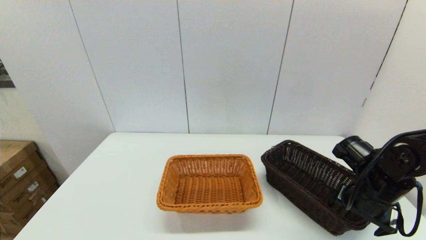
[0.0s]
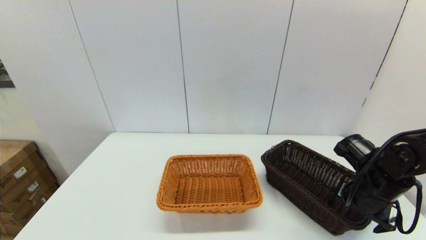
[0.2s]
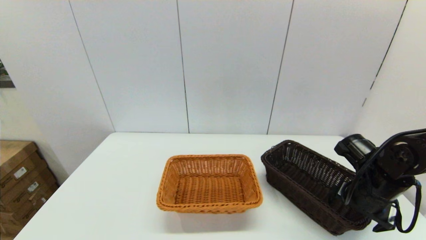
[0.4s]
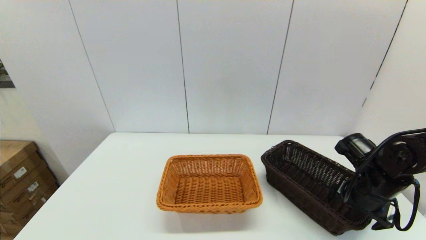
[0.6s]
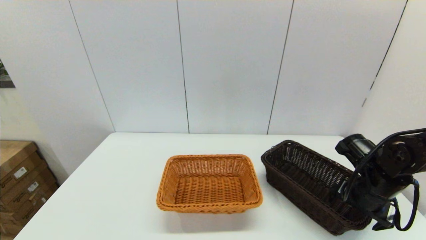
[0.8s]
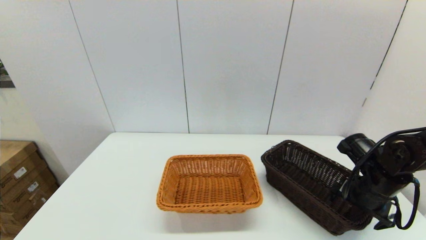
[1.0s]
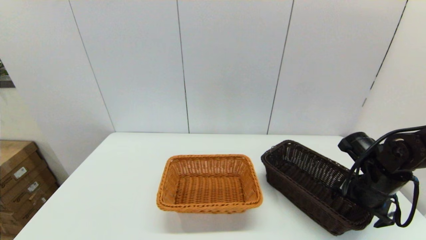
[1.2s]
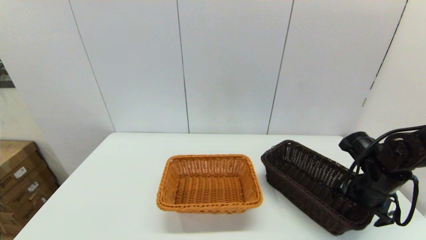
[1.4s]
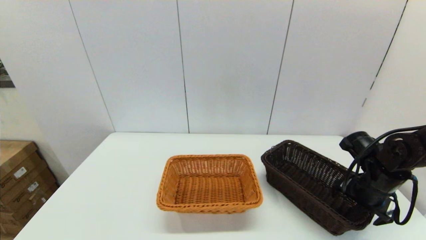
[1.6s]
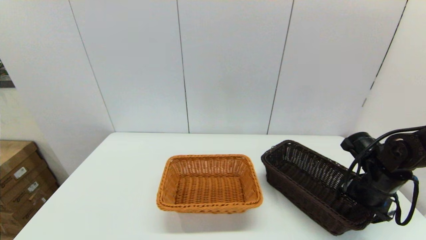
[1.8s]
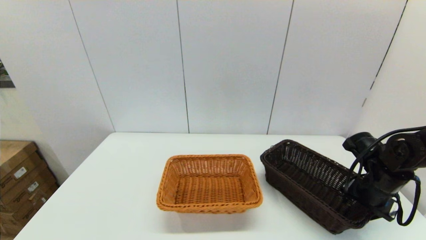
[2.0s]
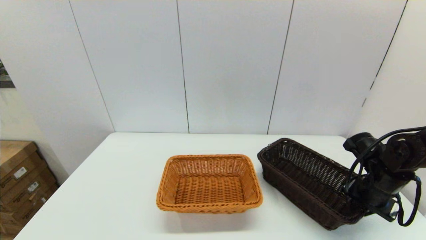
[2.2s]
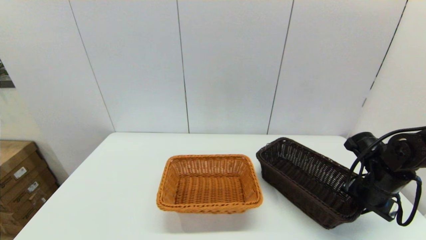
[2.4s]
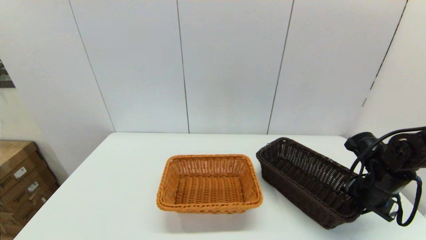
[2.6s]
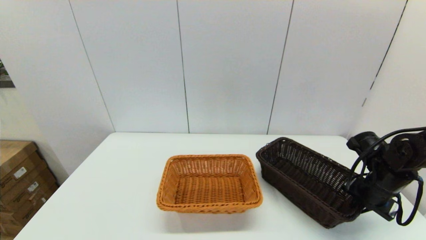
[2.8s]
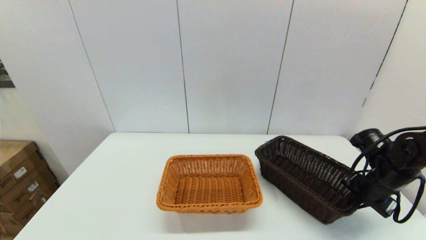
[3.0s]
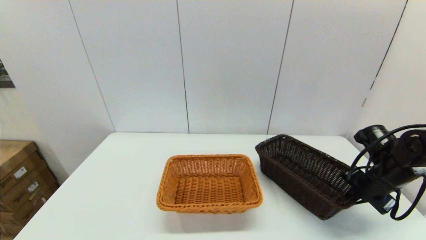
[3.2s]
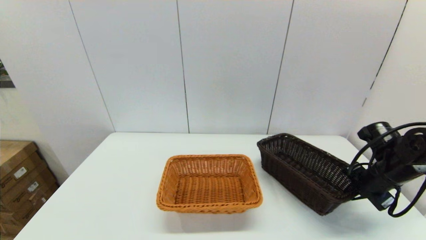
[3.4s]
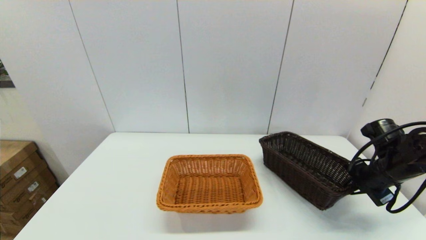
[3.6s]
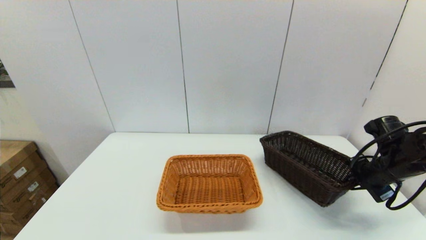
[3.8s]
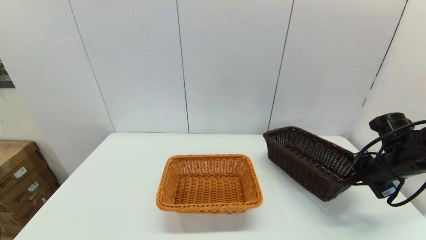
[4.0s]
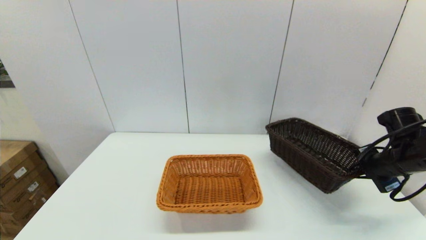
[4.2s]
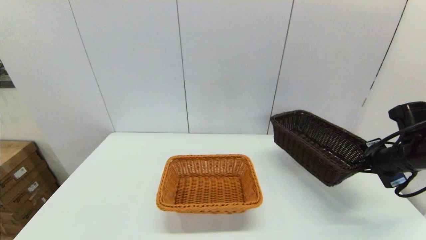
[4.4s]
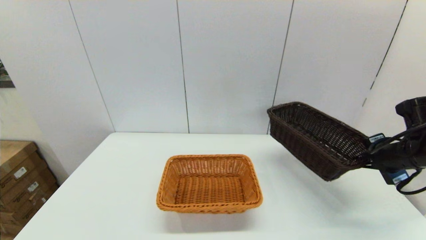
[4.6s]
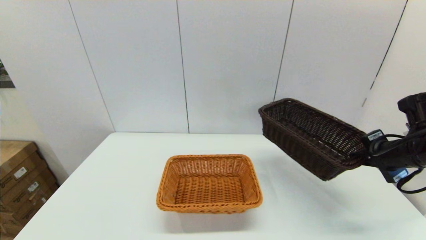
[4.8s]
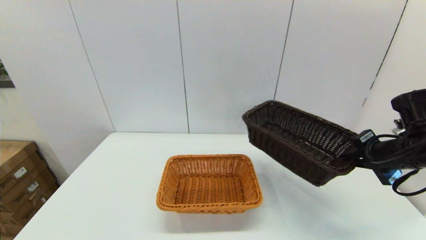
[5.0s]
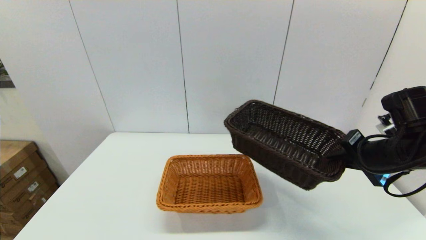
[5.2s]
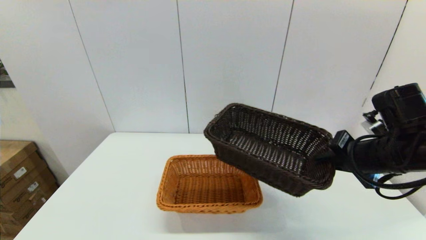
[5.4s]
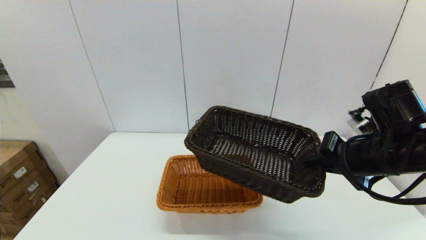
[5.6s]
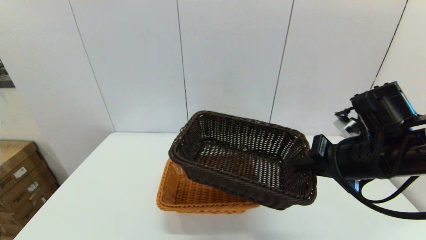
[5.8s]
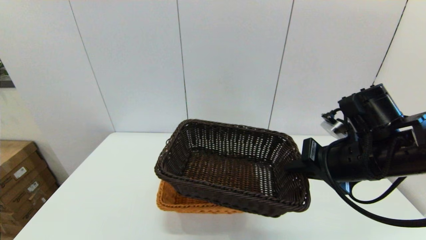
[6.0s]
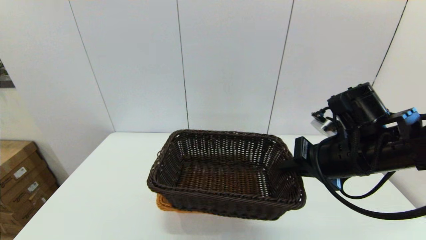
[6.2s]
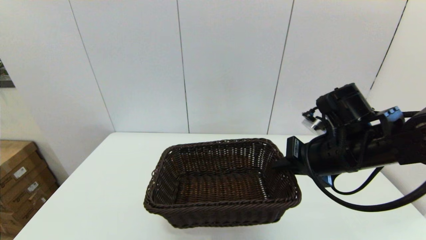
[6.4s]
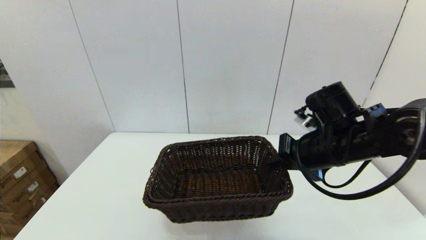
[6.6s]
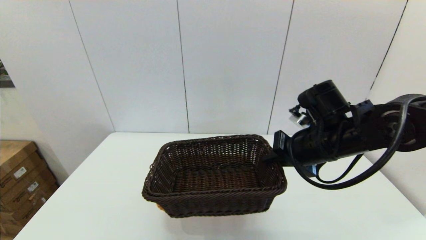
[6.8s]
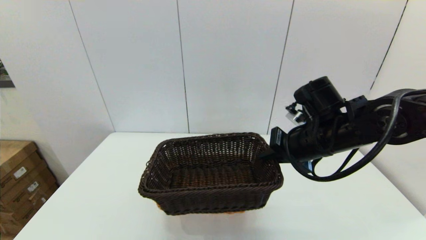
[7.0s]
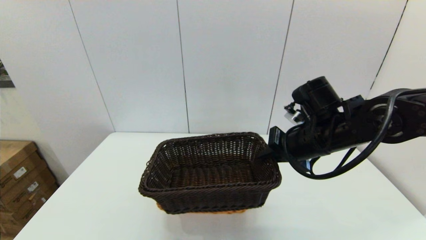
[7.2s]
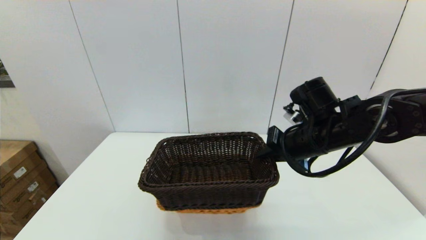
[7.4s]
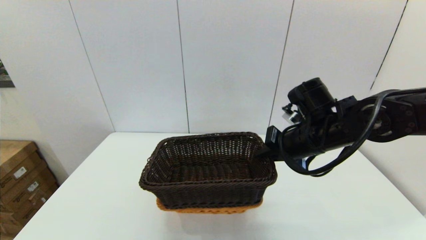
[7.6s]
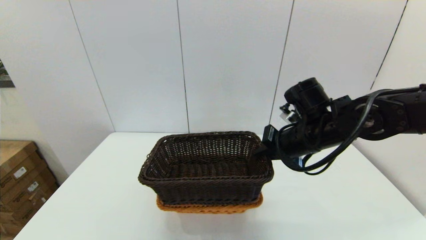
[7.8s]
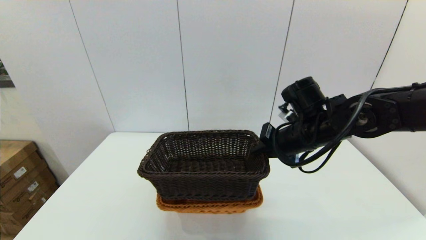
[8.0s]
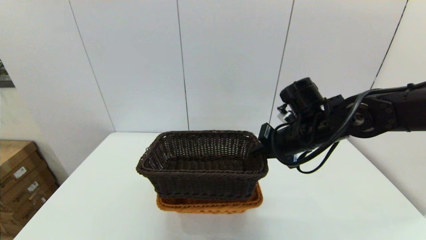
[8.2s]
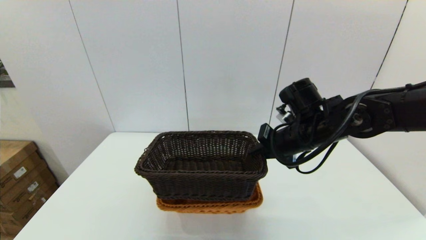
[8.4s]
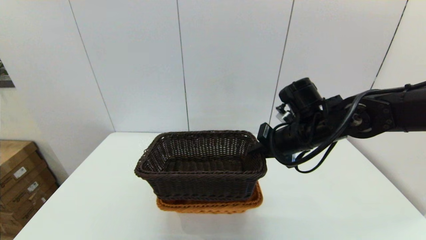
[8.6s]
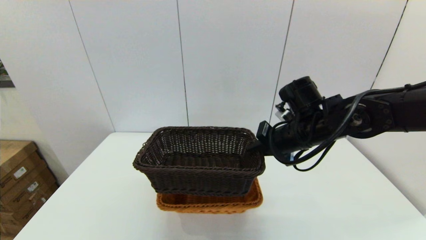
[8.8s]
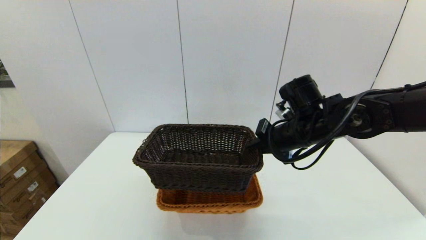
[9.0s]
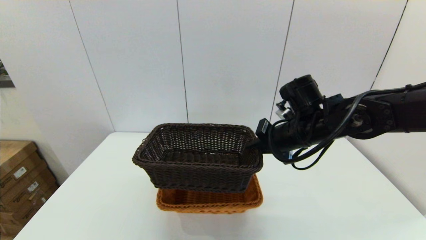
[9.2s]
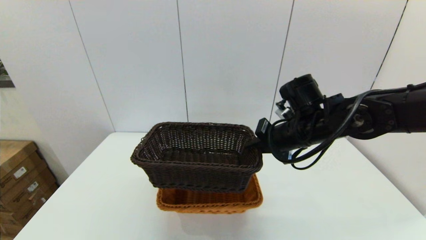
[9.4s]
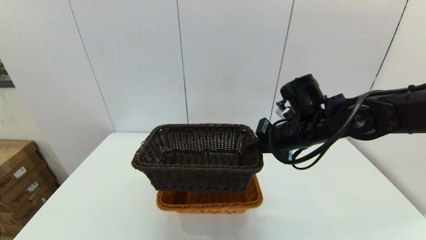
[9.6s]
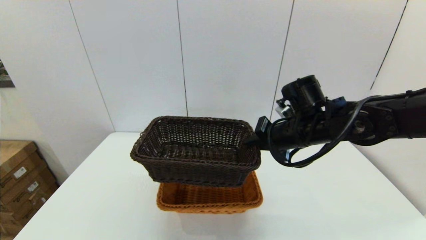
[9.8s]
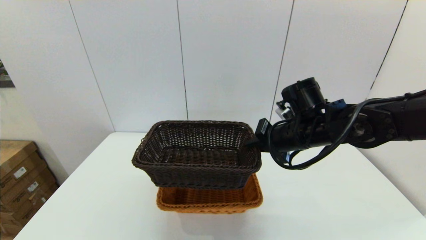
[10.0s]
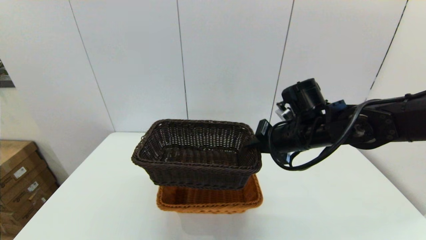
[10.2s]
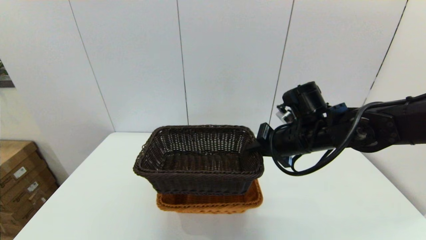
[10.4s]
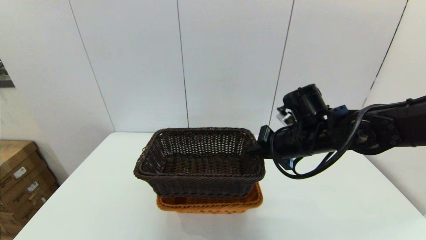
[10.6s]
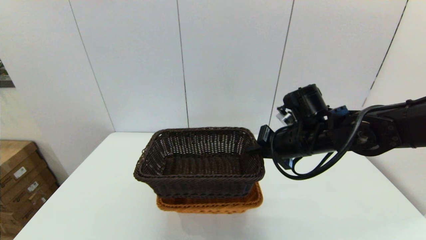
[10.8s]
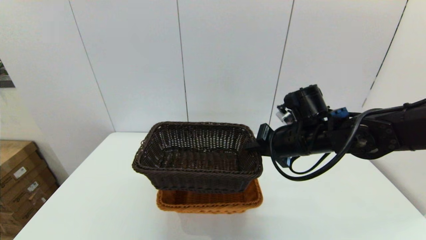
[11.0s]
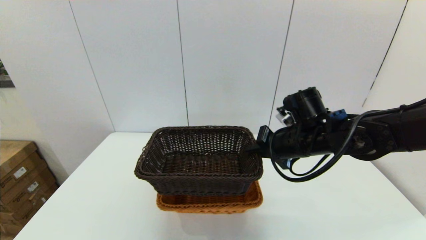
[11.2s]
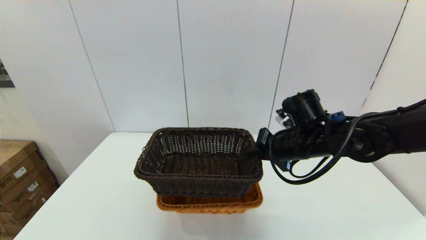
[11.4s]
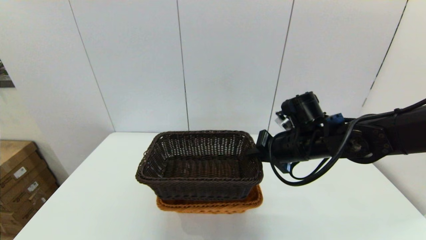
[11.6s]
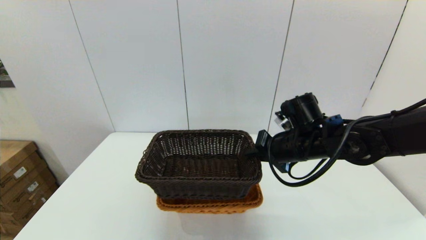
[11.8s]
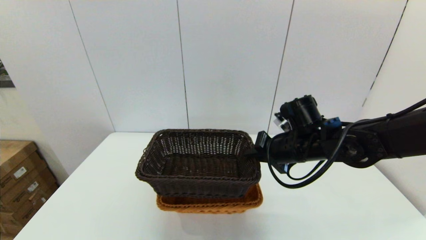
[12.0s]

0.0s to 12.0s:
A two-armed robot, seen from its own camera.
Task of the whole recording: stack a basket on top of another basket.
Step, 0.0s to 2.2s: Grasp the dark basket with the right gripper.
0.0s to 1.6s: The grippers stay close to where they were, moving slightly.
1.6s to 3.0s: The right gripper closes up.
3.0s to 4.4s: The right gripper goes roughly 5 cm upward.
4.4s to 6.0s: The right gripper is displaced to the left by some 15 cm.
6.0s to 7.6s: The right gripper is displaced forward by roughly 5 cm.
7.6s to 12.0s: The grippers stay close to where they were, moving slightly.

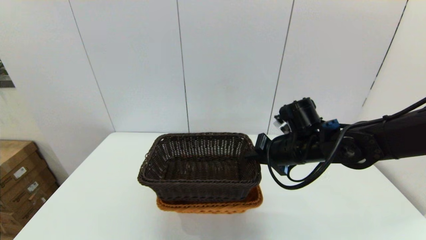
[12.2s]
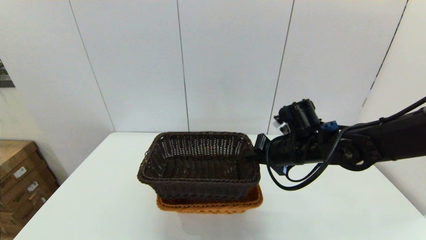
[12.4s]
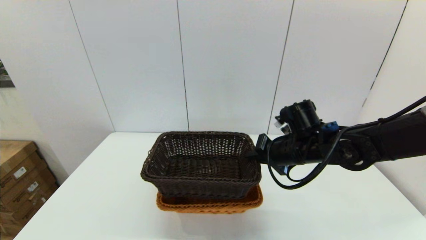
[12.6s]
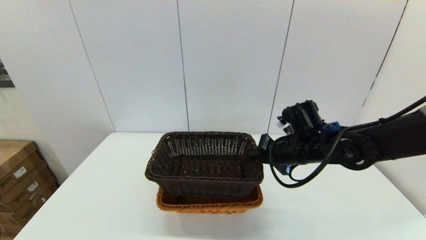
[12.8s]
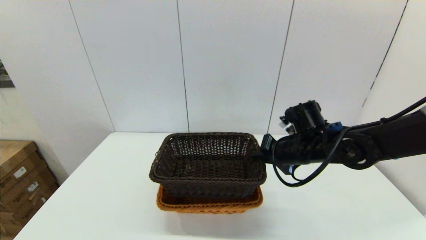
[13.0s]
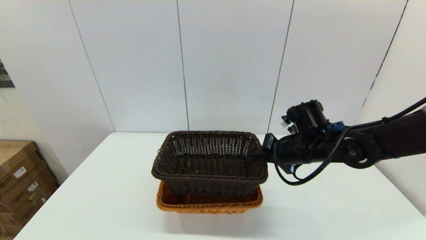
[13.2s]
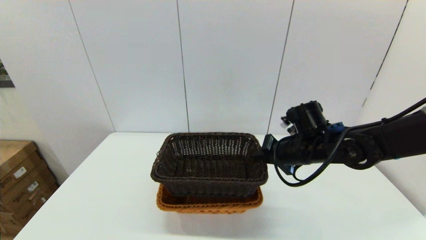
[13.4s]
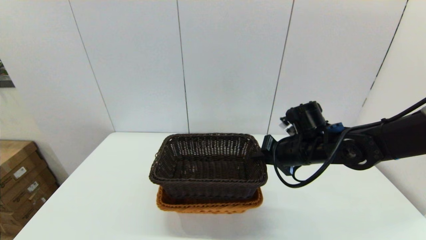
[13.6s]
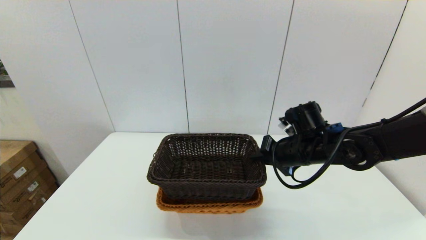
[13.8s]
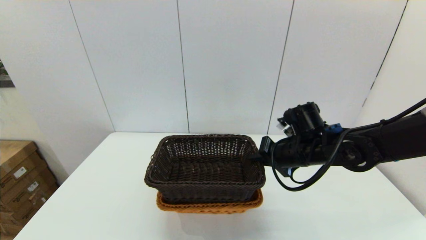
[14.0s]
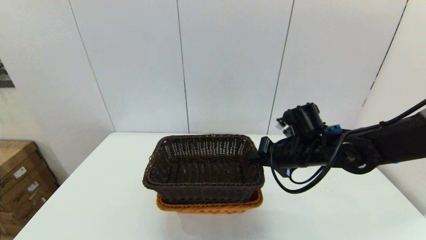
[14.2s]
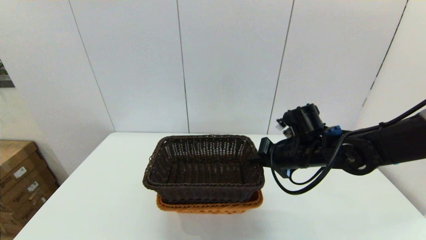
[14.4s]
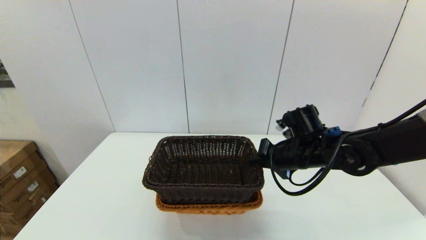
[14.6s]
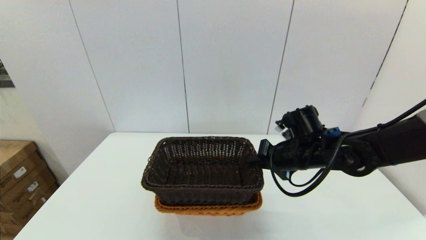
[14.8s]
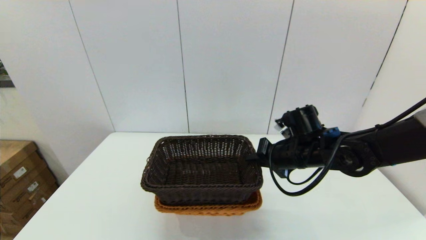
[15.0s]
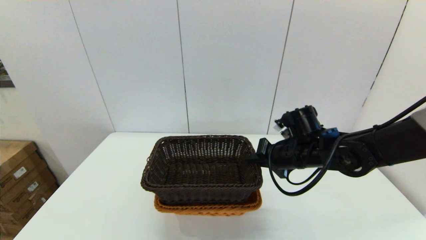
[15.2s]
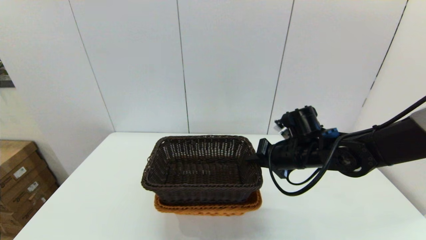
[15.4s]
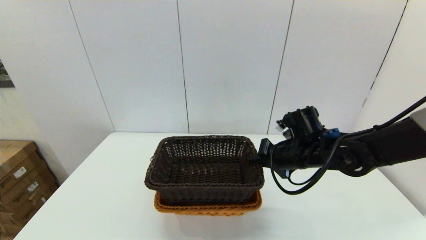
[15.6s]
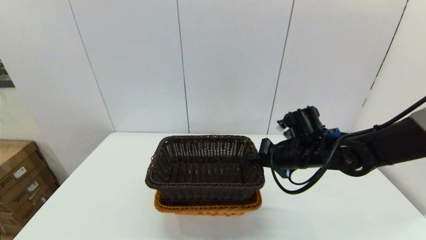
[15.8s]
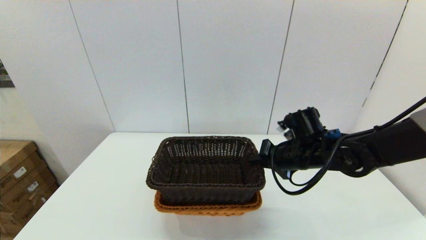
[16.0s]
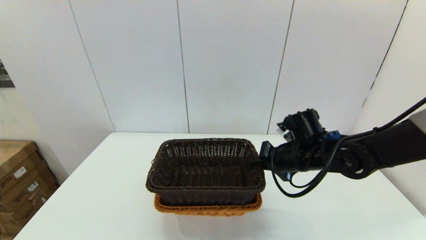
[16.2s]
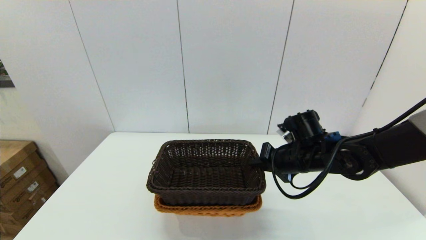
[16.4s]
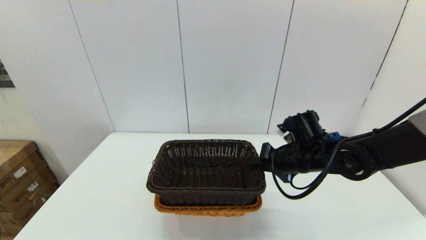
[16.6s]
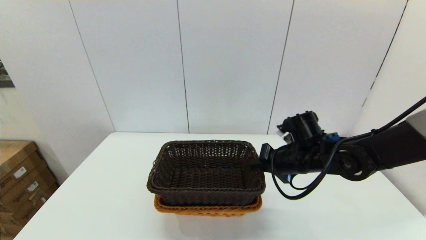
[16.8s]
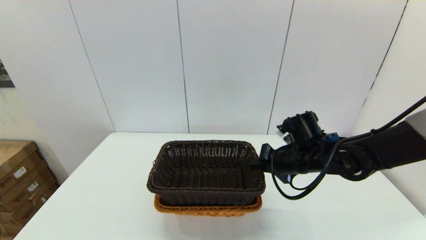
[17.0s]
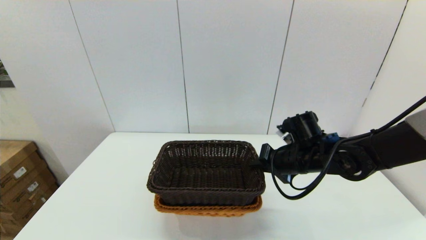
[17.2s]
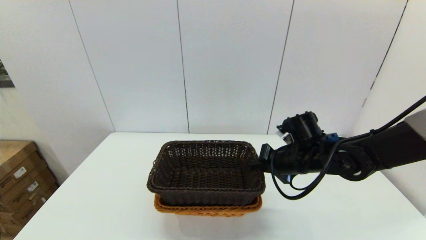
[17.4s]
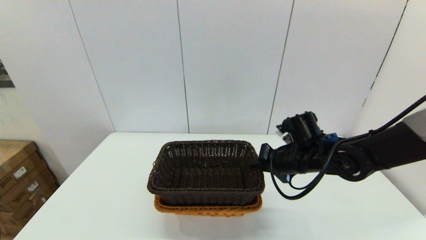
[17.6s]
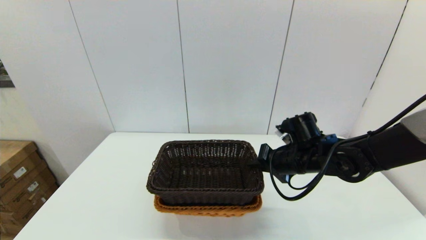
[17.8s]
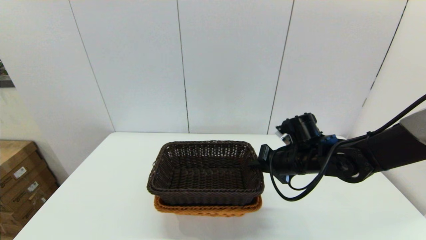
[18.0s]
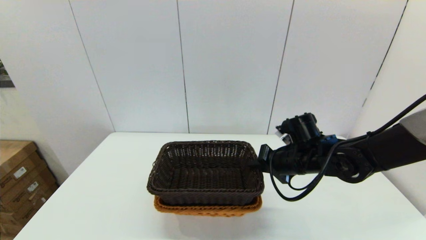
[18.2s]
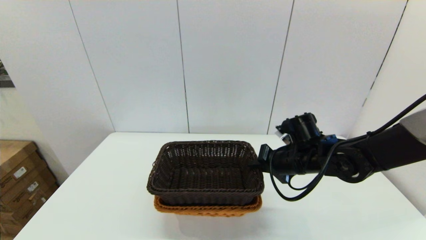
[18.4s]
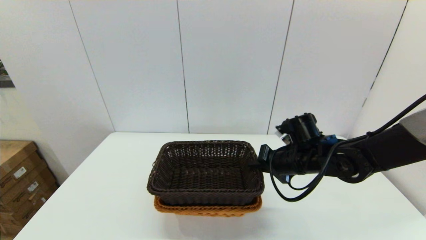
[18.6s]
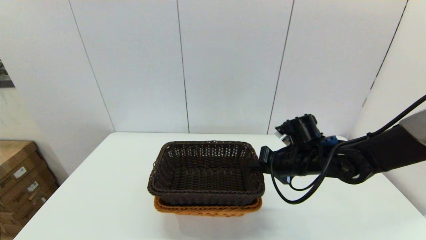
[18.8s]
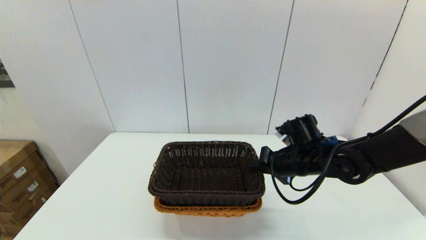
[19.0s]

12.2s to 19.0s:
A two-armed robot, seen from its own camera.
Task of the whole recording: stack a basket on top of another basket.
12.2s to 13.6s: There are only small adjustments of the grippers.
13.6s to 15.0s: Neither gripper changes place.
15.0s to 16.2s: Neither gripper changes place.
16.2s to 19.0s: Both grippers stay put.
